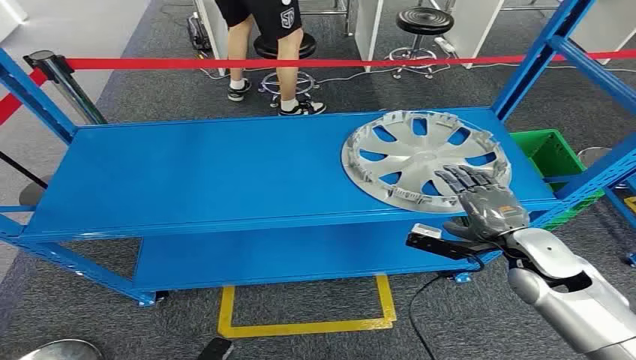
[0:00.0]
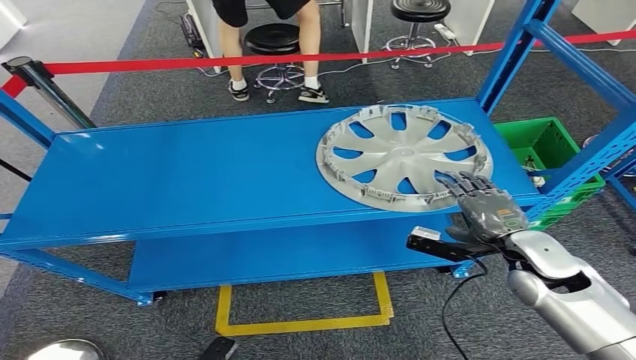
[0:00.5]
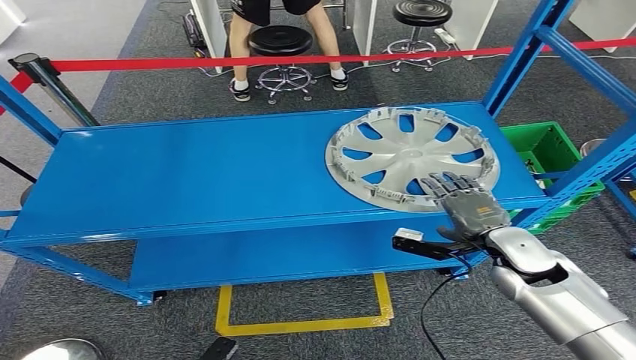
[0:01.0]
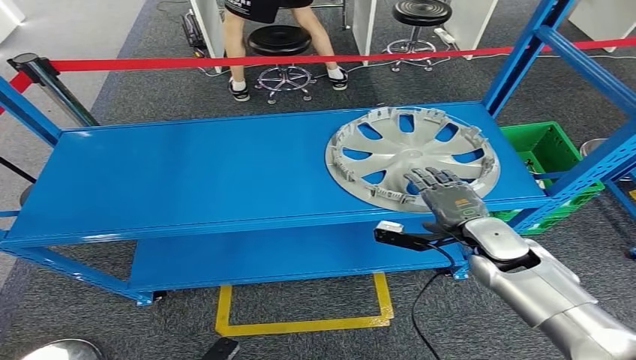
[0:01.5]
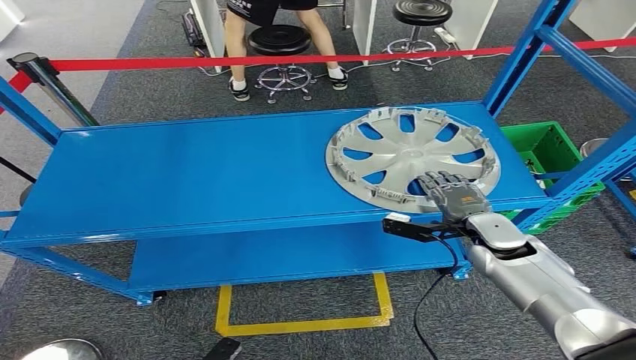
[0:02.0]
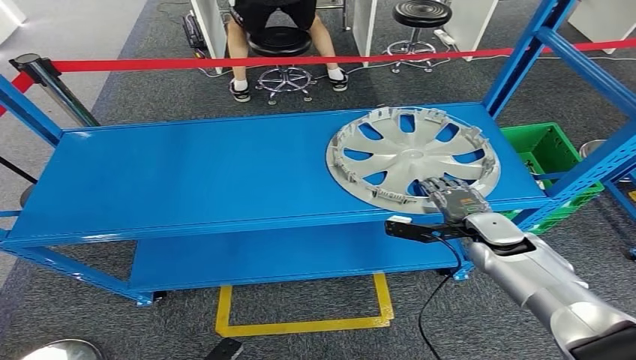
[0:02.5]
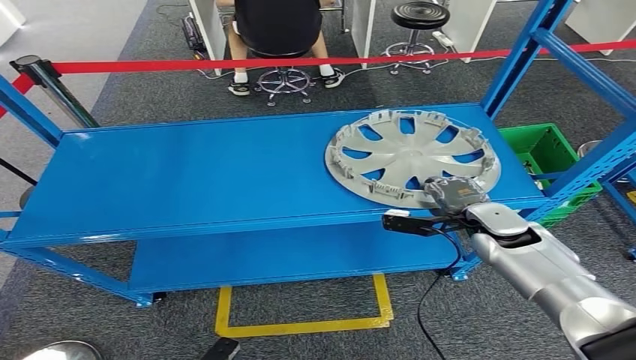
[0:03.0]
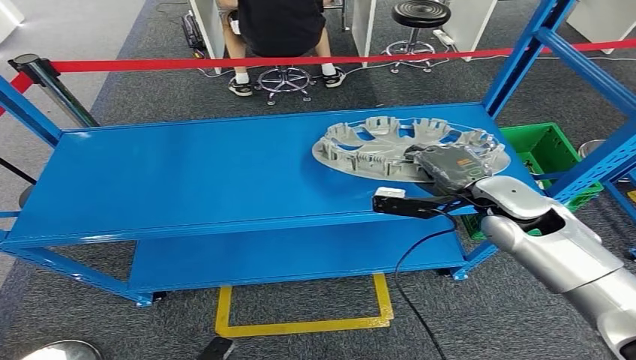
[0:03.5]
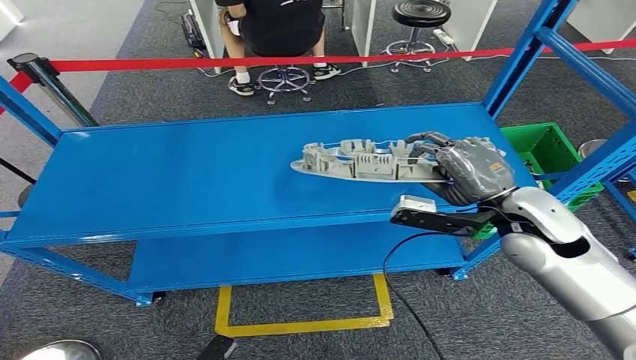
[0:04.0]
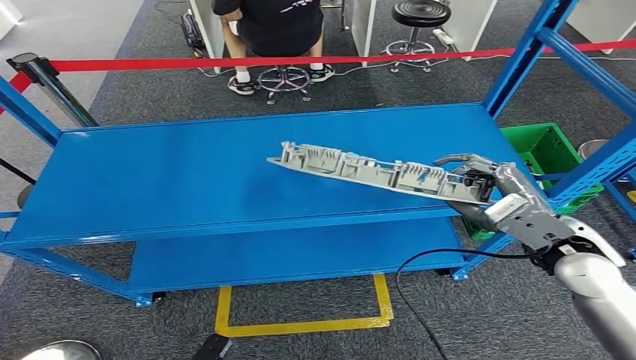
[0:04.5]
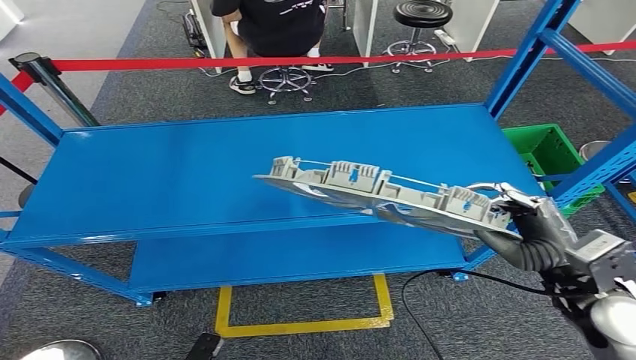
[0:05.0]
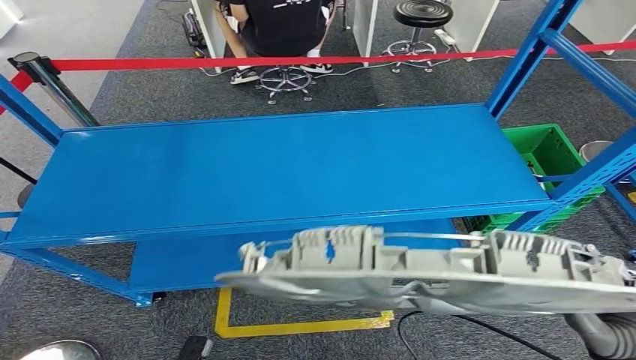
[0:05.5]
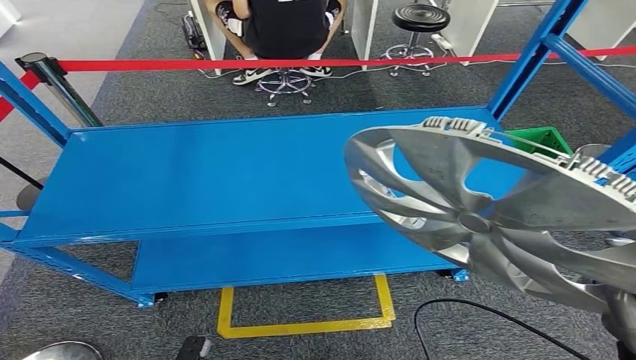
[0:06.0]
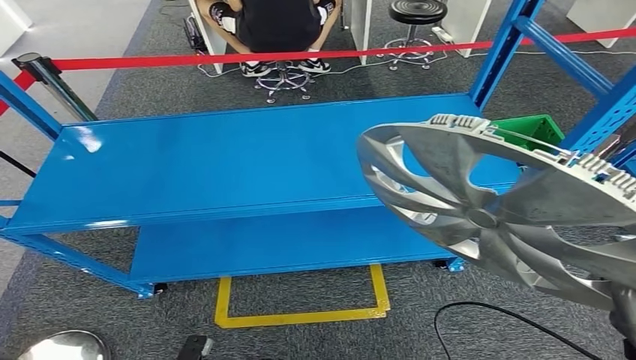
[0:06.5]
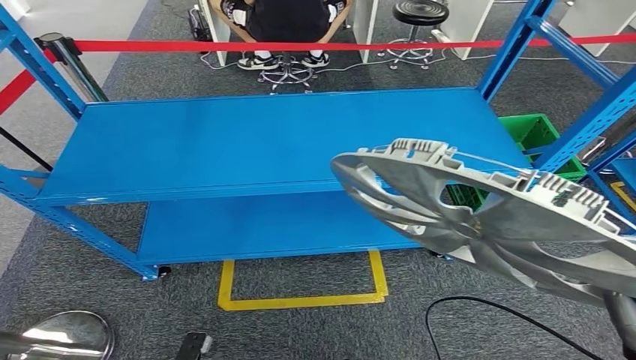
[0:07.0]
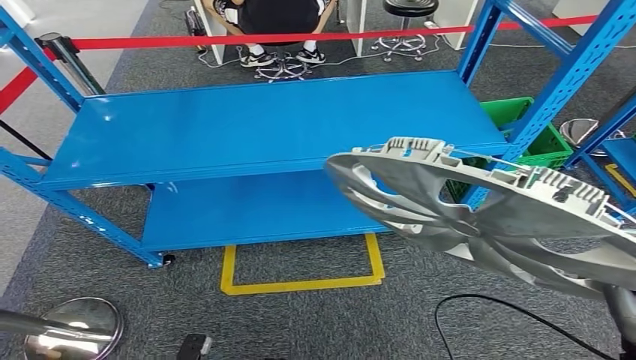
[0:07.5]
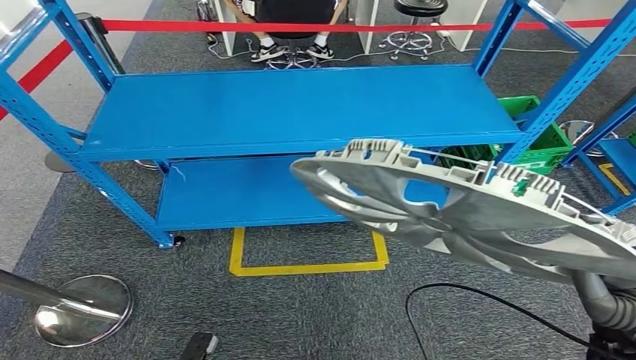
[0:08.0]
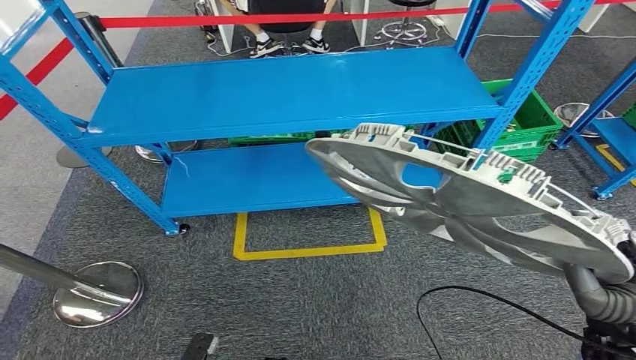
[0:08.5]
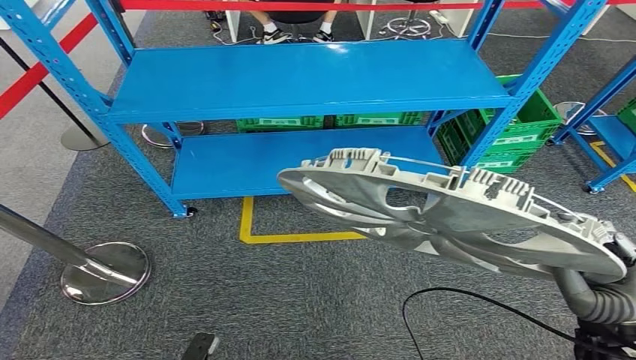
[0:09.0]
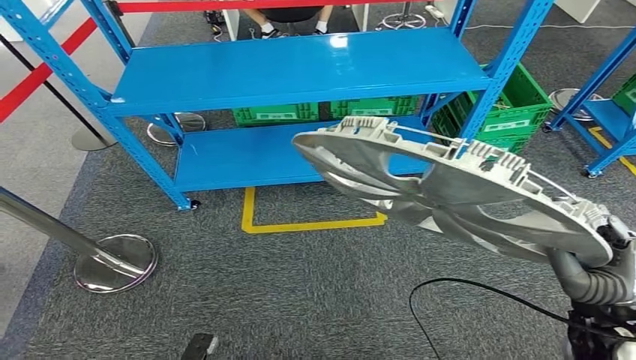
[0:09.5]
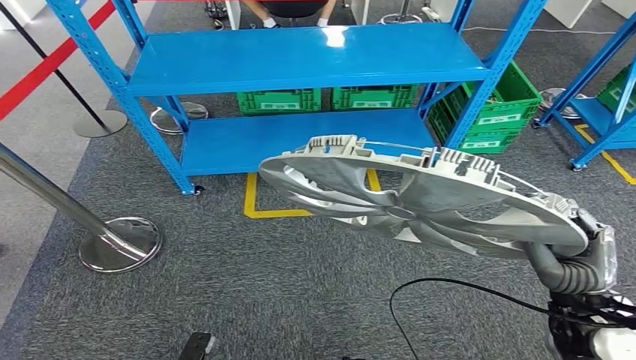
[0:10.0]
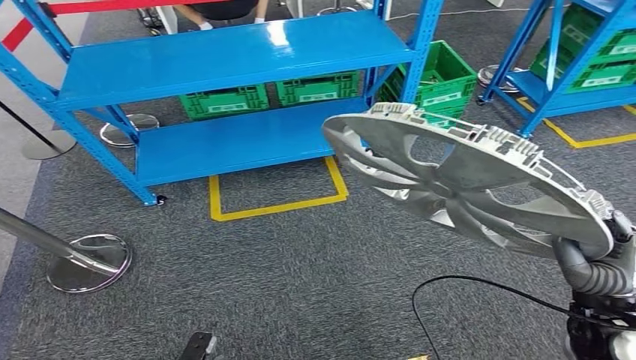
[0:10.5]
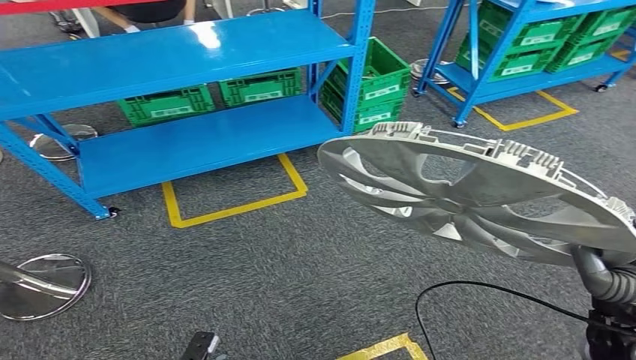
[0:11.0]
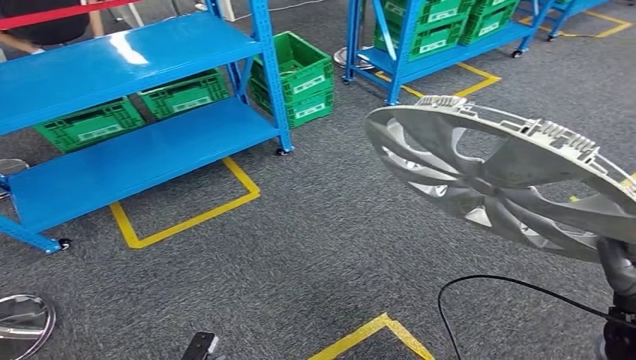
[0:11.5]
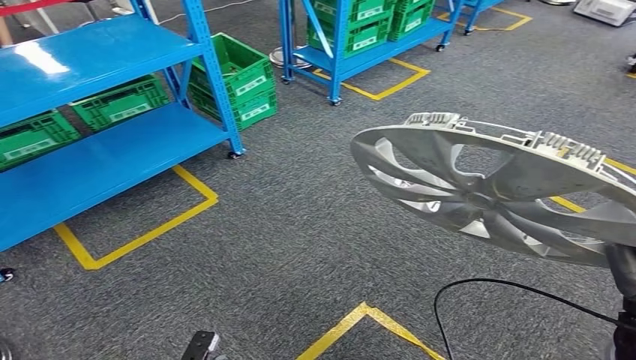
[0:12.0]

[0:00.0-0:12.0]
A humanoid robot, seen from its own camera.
Step, 0:00.0 to 0:06.0: Take small components from the rack.
0:02.0 to 0:04.0: The right hand shifts about 15 cm upward.

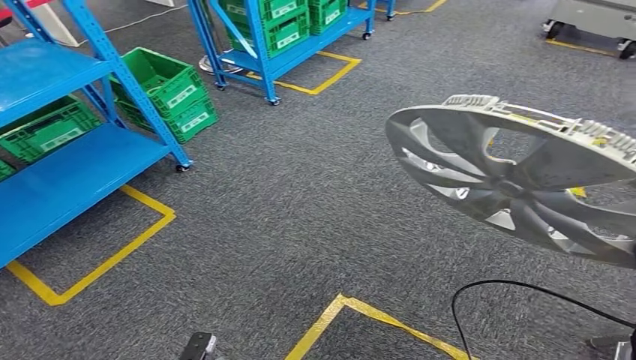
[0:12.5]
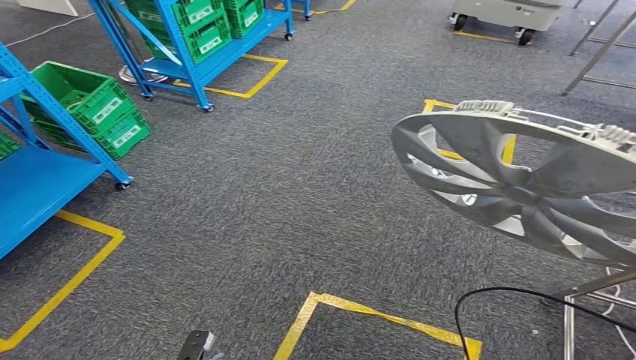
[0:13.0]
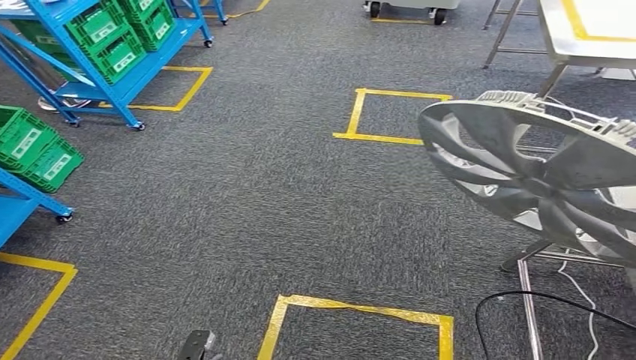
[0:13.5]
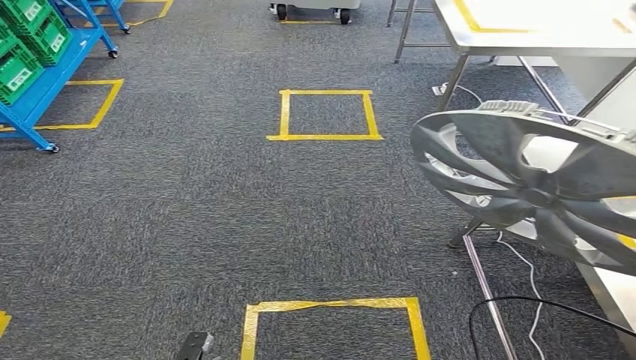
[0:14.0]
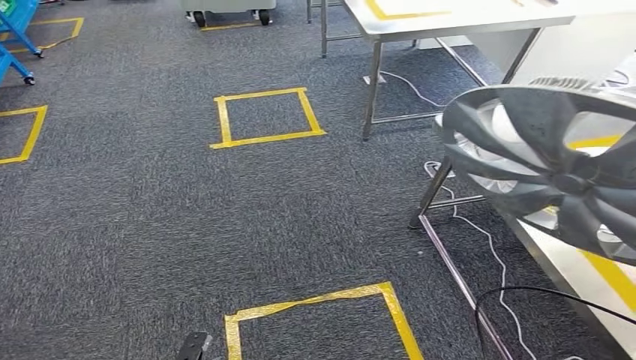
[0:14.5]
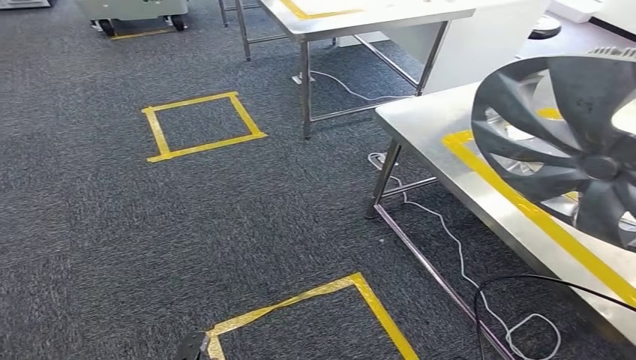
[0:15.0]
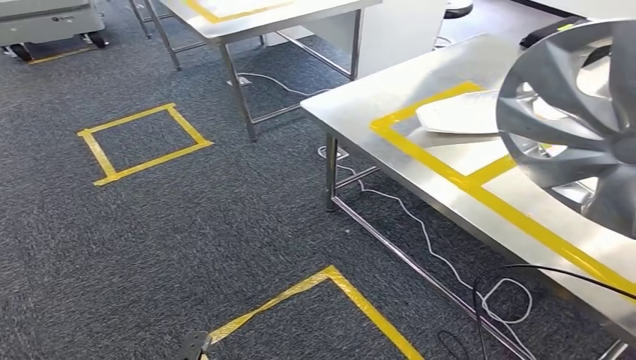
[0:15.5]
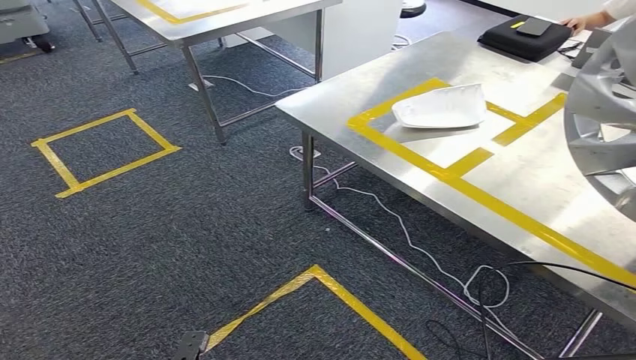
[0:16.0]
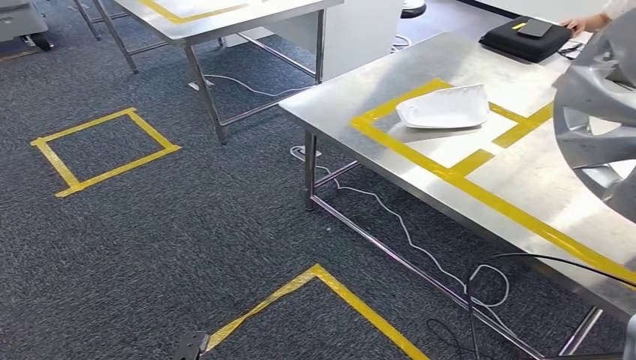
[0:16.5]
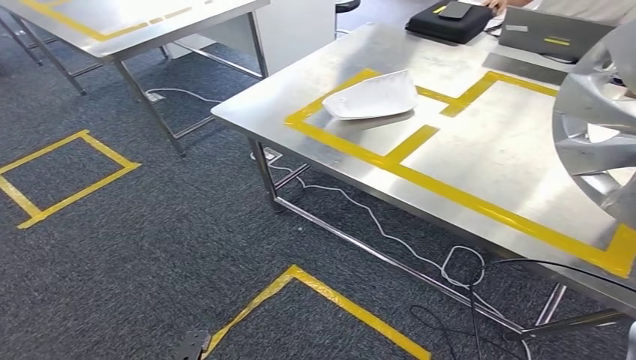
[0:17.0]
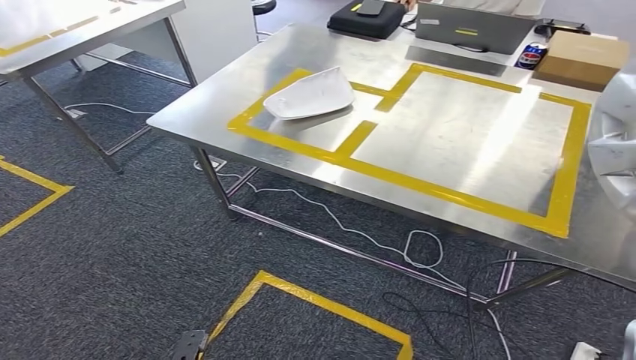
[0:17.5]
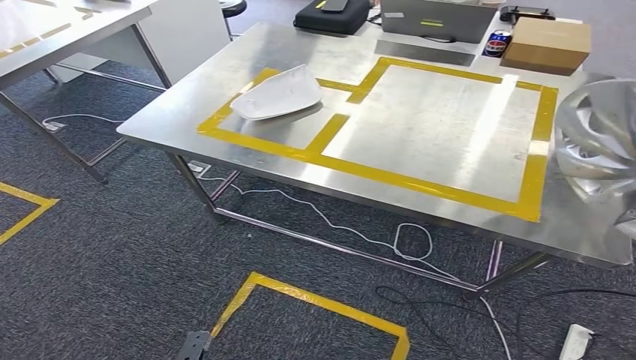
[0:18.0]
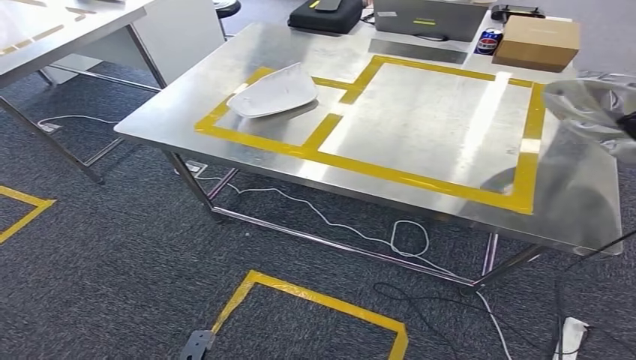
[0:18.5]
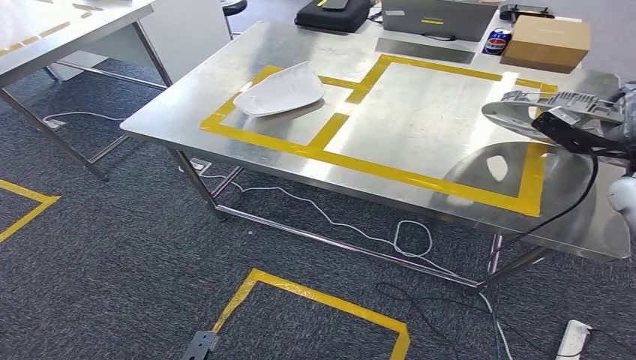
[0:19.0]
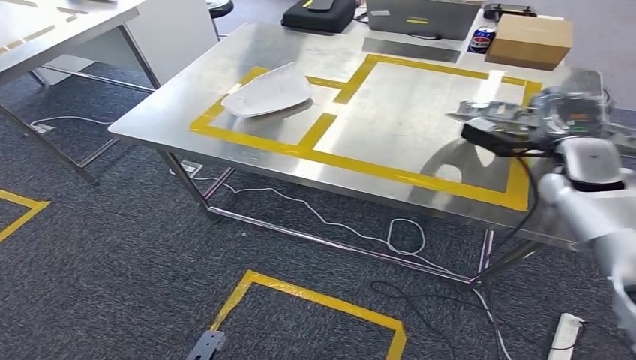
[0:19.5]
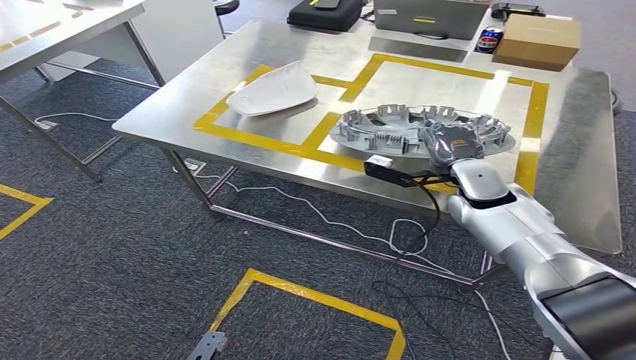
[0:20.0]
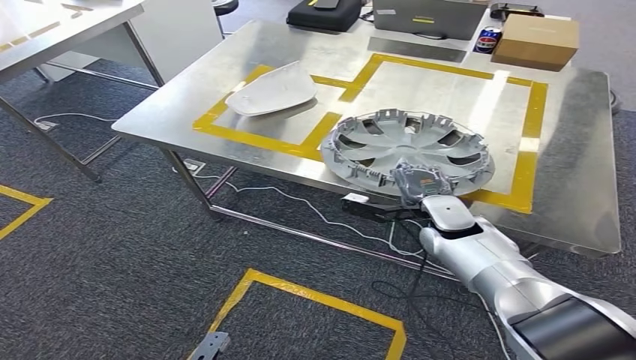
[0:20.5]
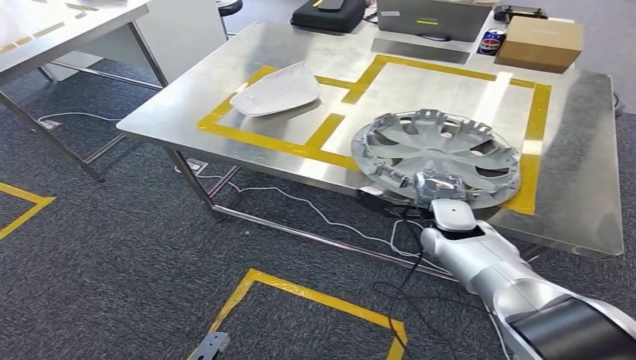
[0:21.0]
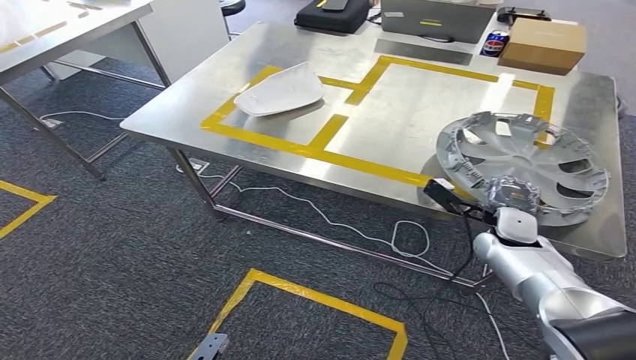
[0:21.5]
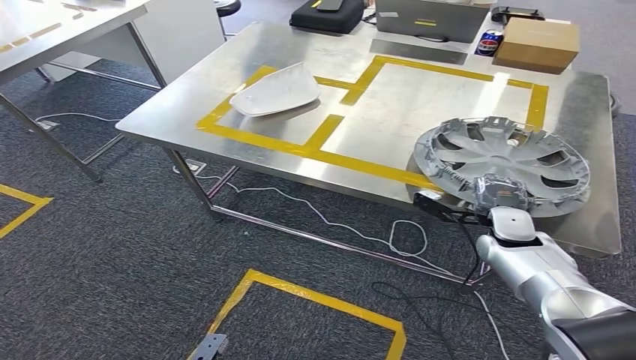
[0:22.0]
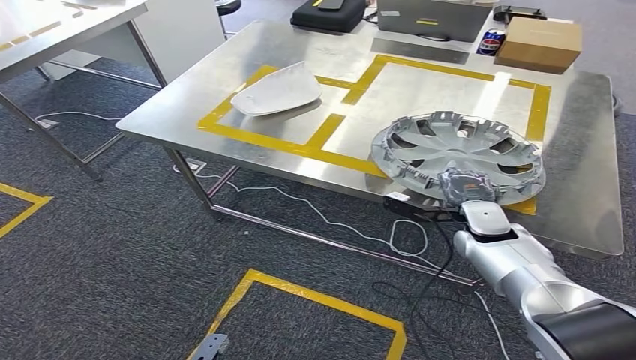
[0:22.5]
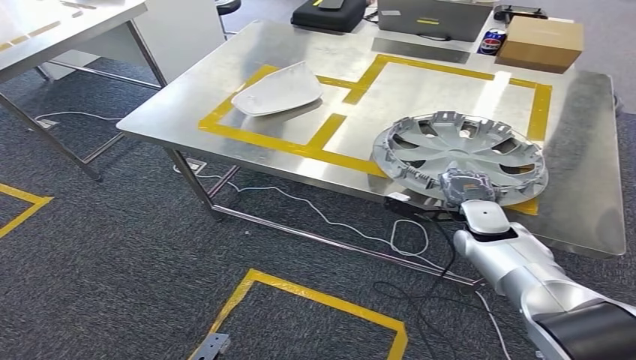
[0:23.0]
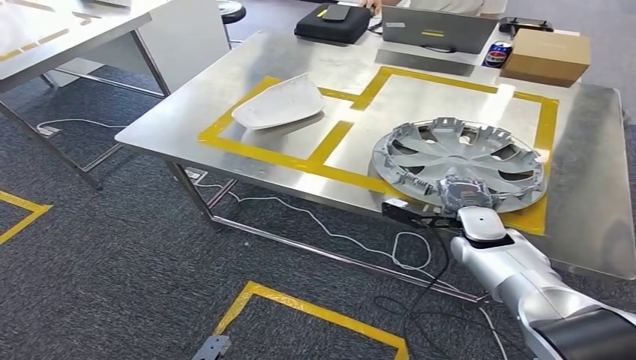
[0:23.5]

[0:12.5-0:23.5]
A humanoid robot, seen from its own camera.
Step, 0:12.5 to 0:18.0: Move the small parts to the workbench.
